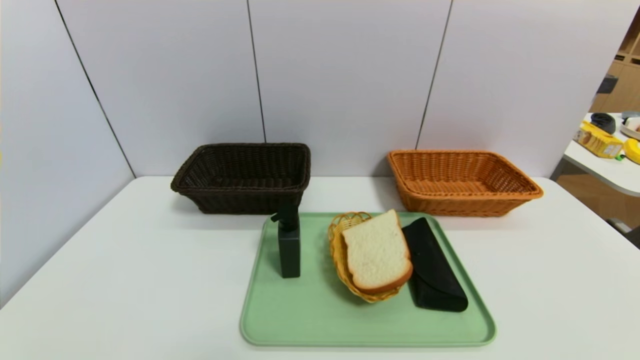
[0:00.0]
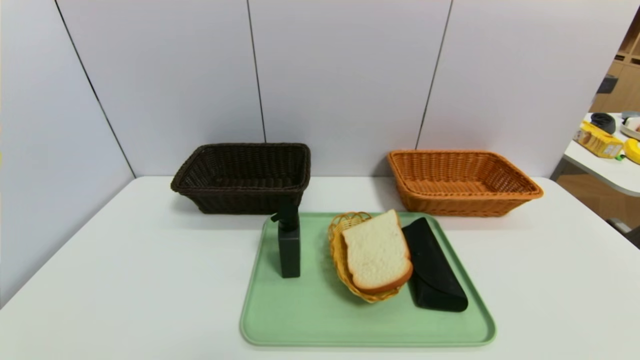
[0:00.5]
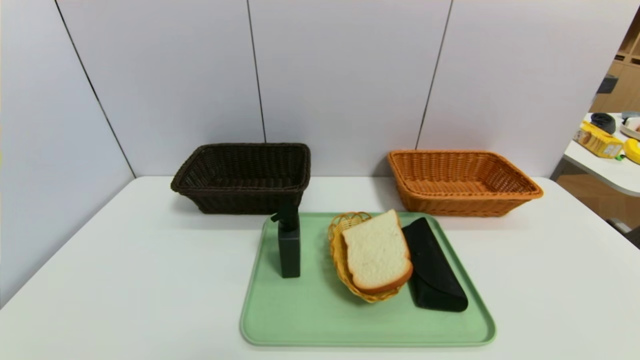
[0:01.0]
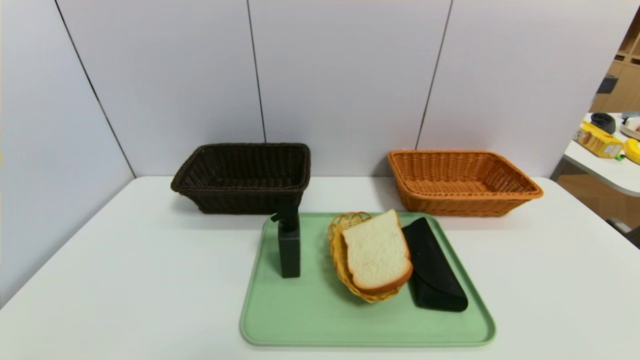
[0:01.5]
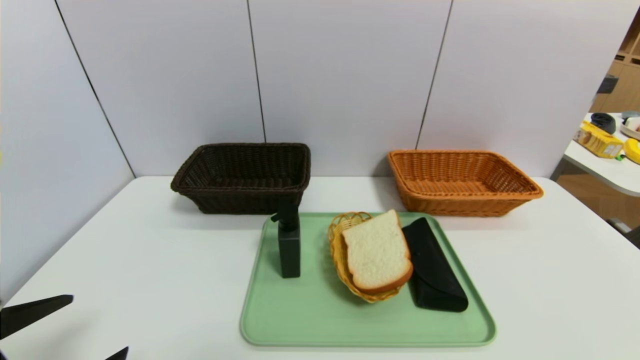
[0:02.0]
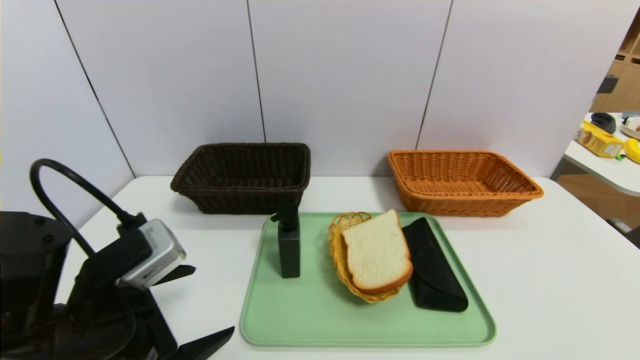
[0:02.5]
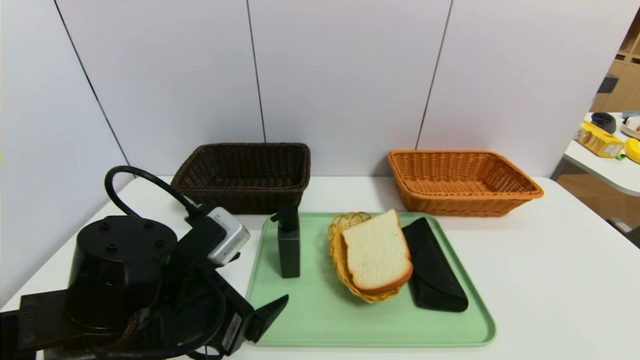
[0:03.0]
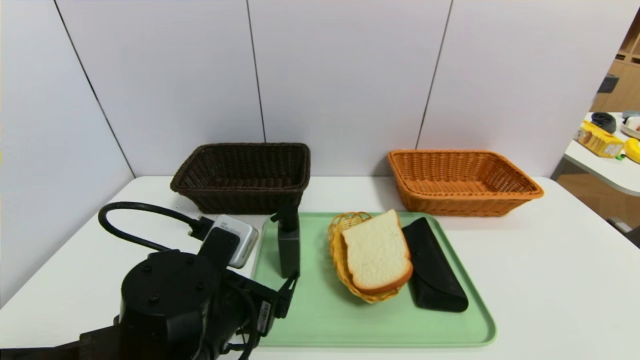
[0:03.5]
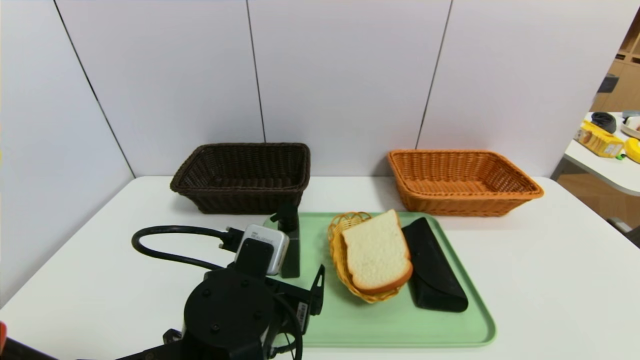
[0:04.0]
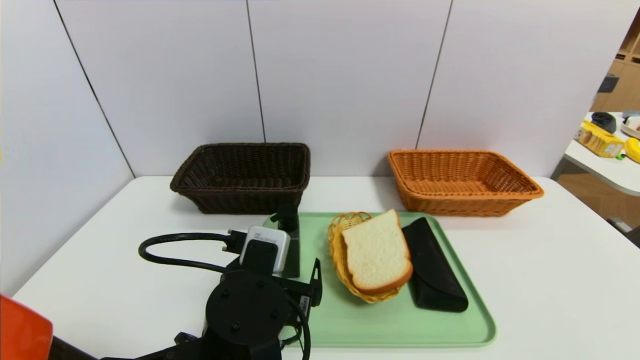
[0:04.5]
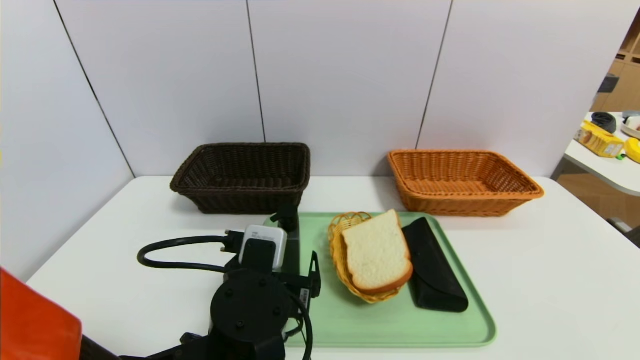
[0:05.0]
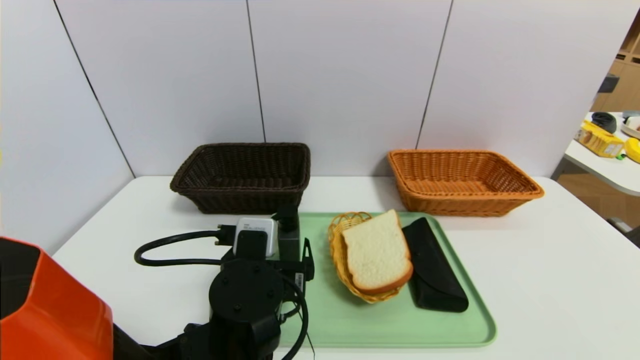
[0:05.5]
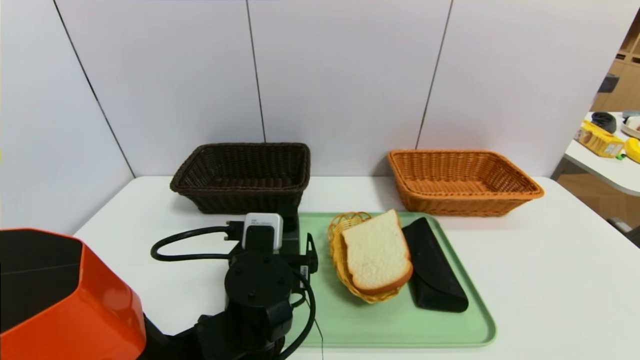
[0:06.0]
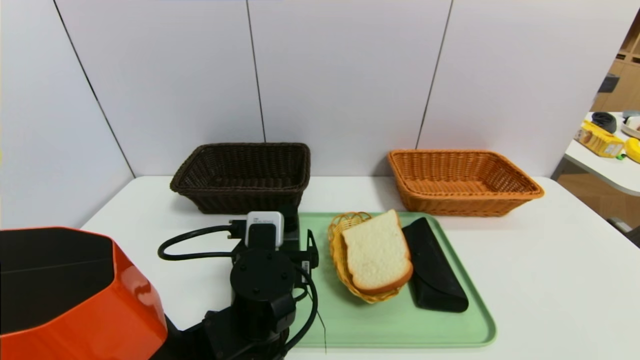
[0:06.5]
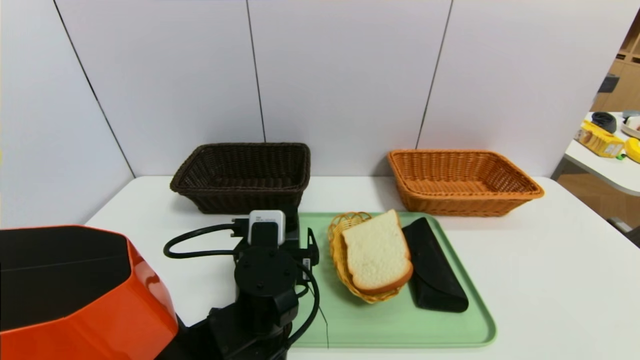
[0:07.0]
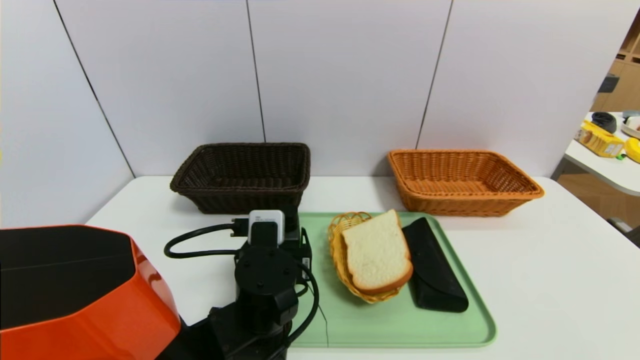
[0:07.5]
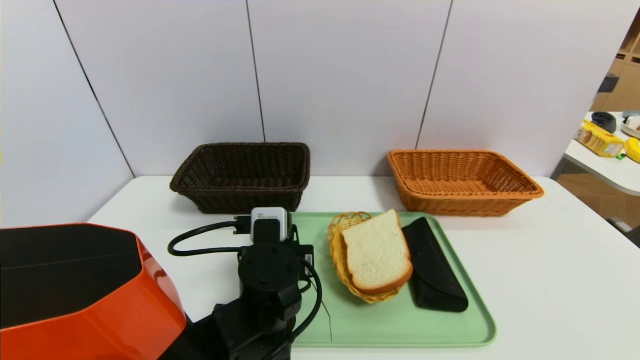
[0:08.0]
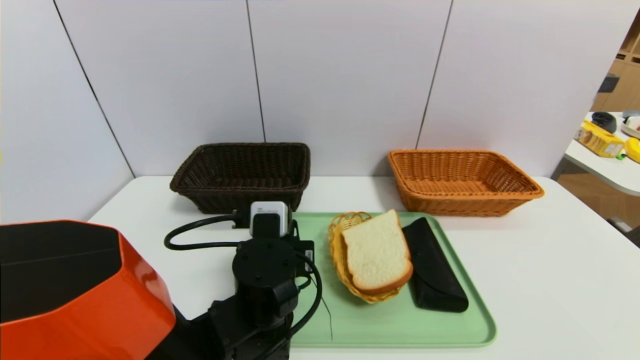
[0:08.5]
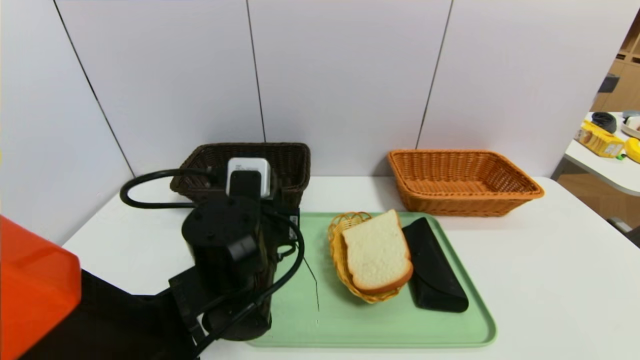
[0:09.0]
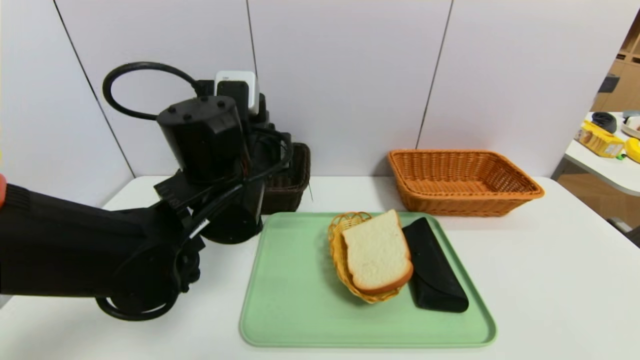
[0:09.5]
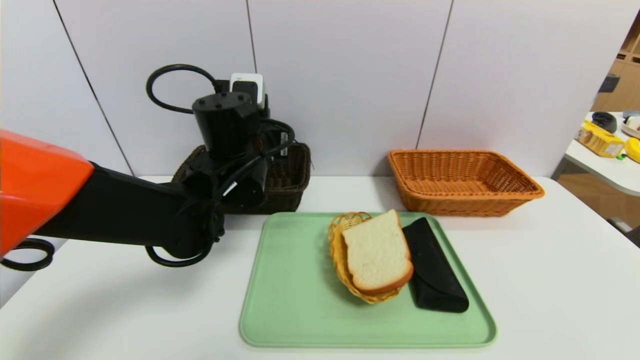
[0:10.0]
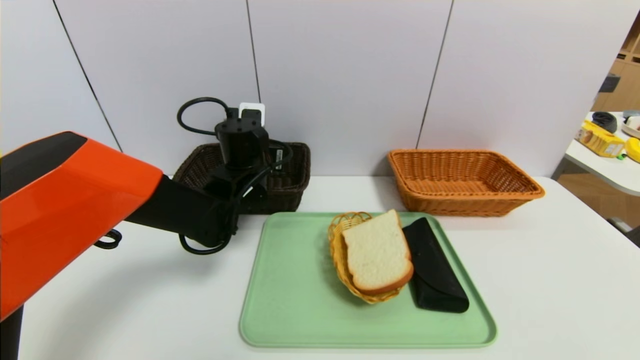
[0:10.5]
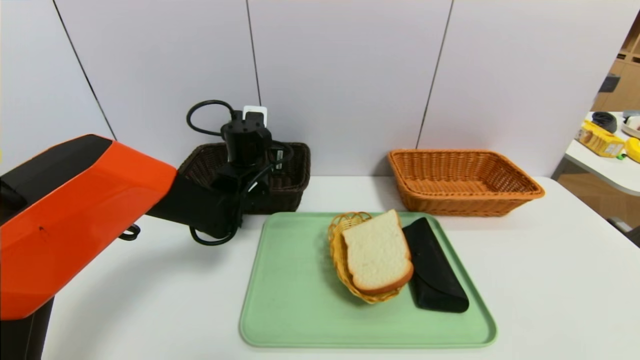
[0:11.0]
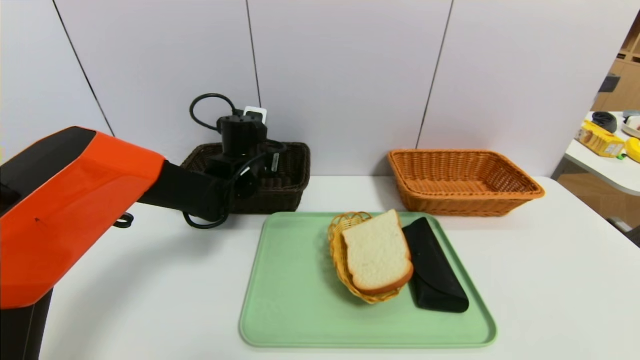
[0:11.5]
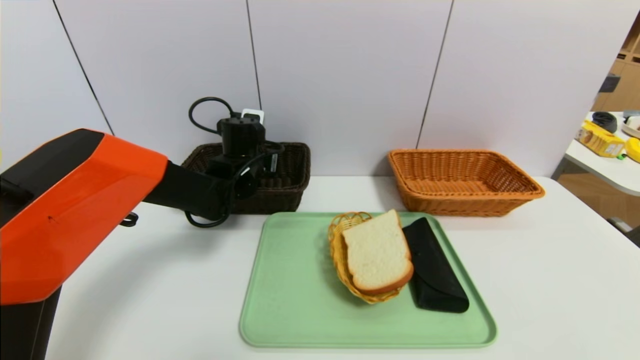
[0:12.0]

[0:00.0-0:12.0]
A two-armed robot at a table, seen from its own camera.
Task of the whole recording: place the food in the right basket with the right gripper, and place the non food items in the left basket with the left gripper.
0:00.0 to 0:02.0: The left gripper heads upward and forward, covering about 15 cm.
0:02.0 to 0:04.0: The left gripper heads to the right and forward, covering some 20 cm.
0:04.0 to 0:06.0: The grippers stay close to where they were, moving slightly.
0:06.0 to 0:08.0: The left gripper closes.
0:08.0 to 0:10.0: The left gripper shifts some 15 cm upward and forward.
0:10.0 to 0:12.0: The left gripper moves forward and downward, approximately 10 cm.

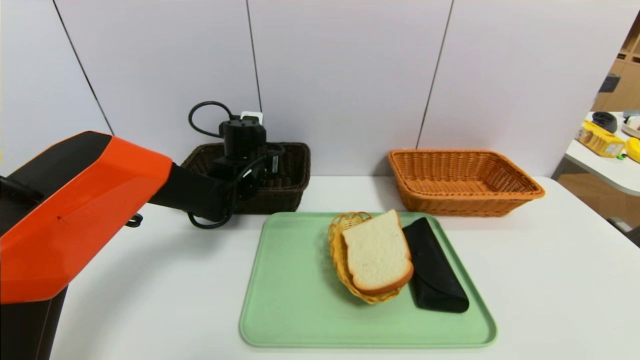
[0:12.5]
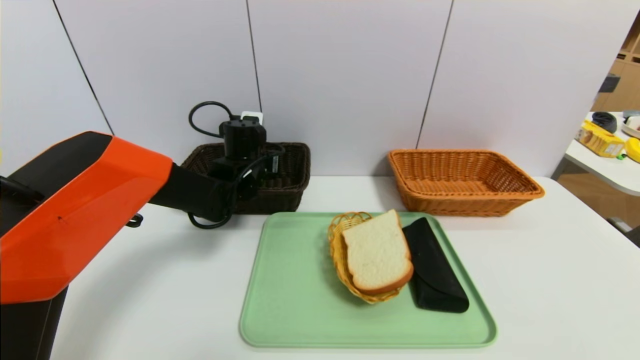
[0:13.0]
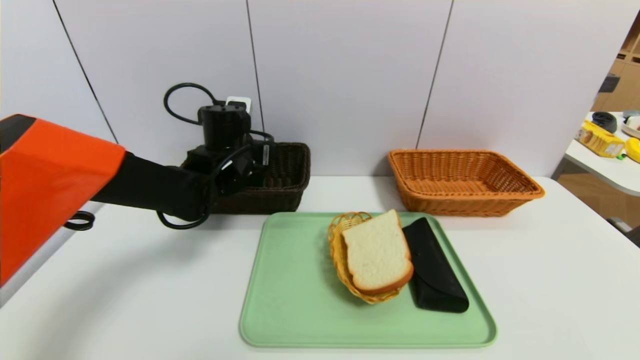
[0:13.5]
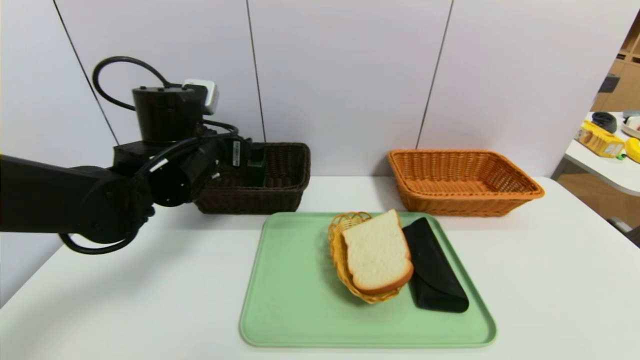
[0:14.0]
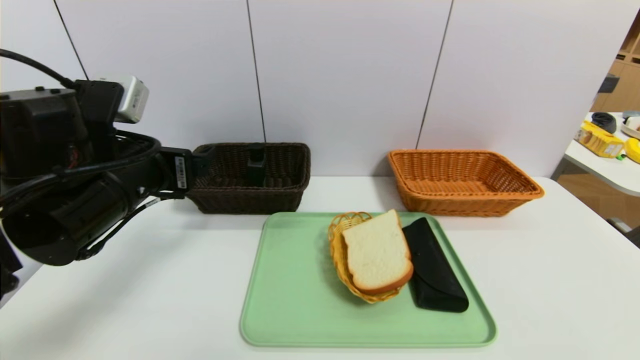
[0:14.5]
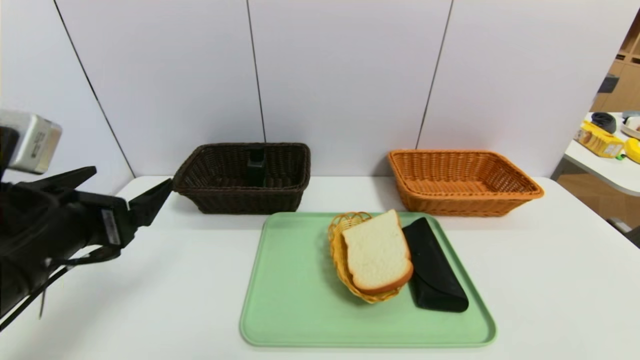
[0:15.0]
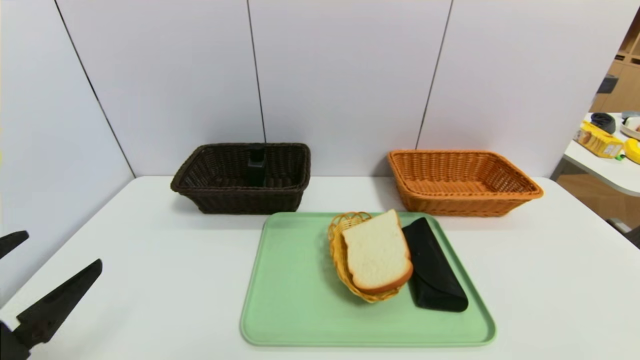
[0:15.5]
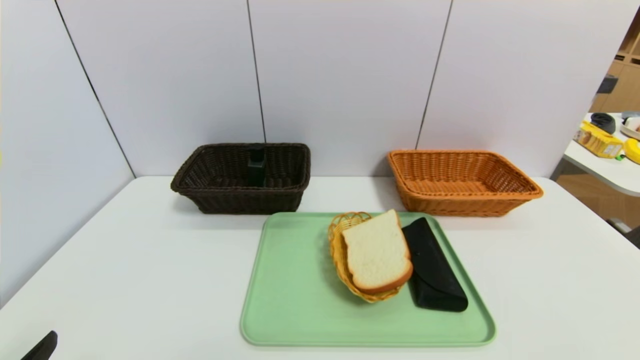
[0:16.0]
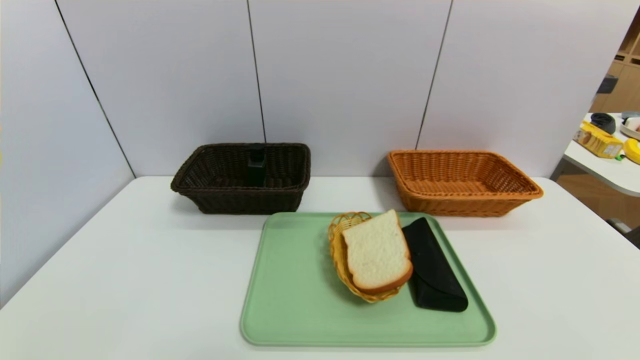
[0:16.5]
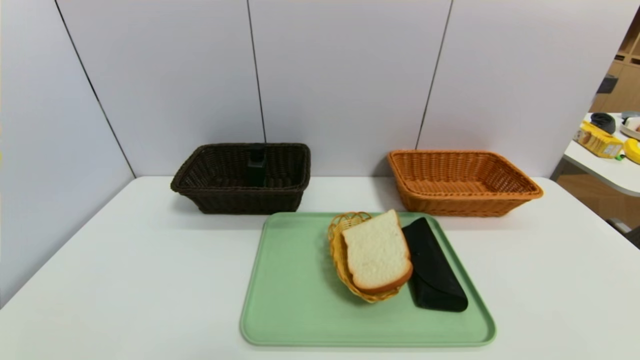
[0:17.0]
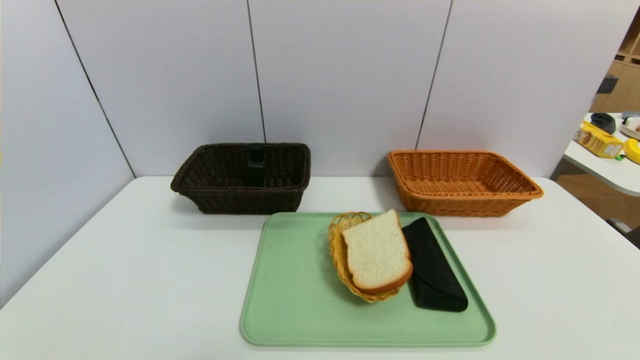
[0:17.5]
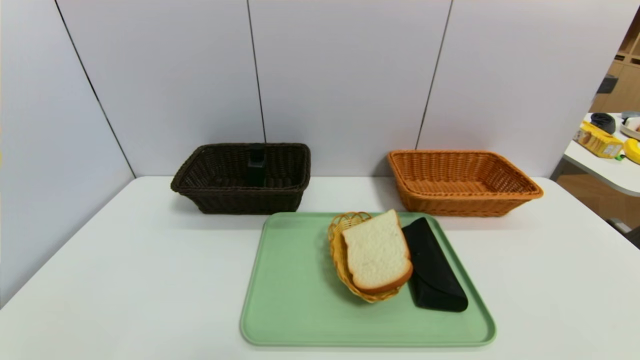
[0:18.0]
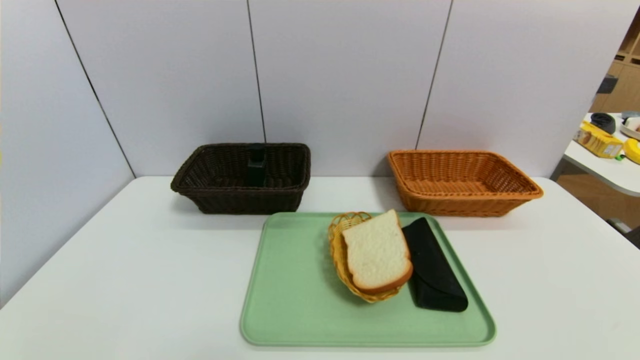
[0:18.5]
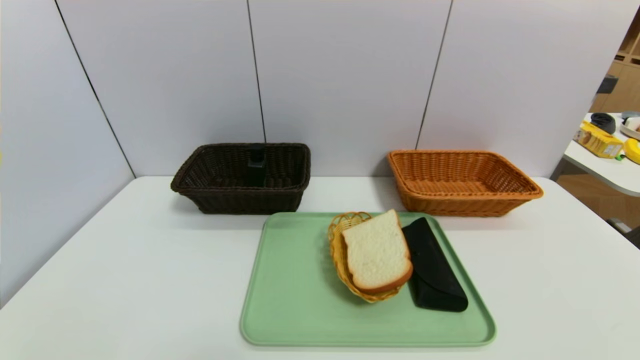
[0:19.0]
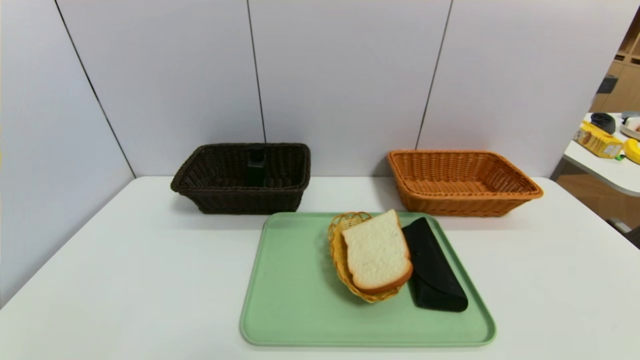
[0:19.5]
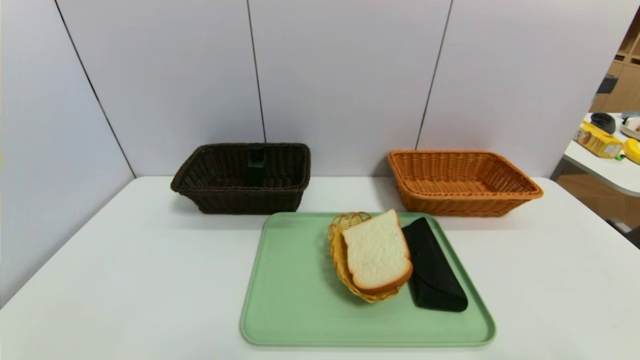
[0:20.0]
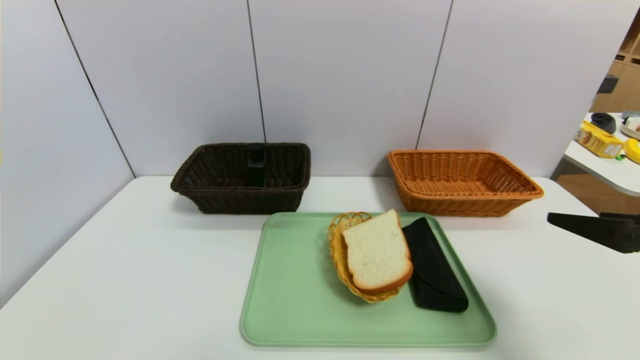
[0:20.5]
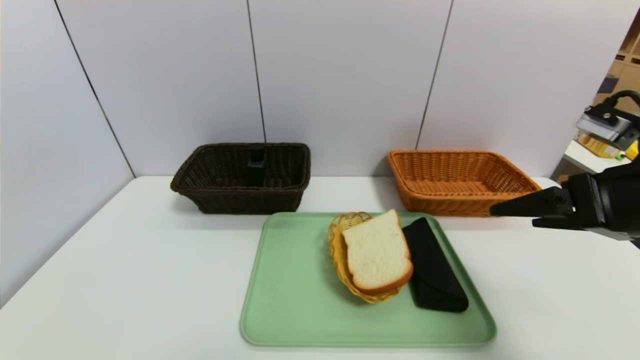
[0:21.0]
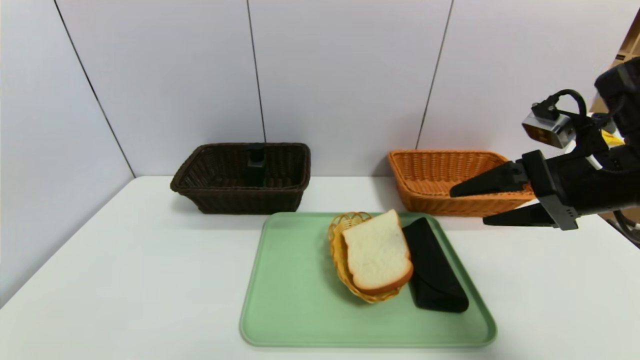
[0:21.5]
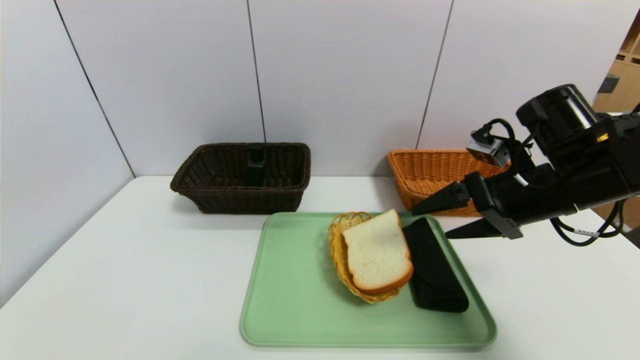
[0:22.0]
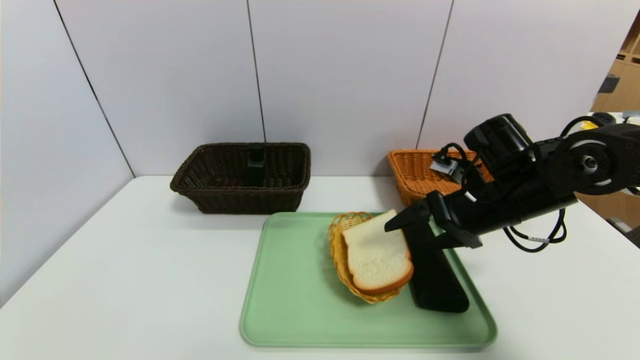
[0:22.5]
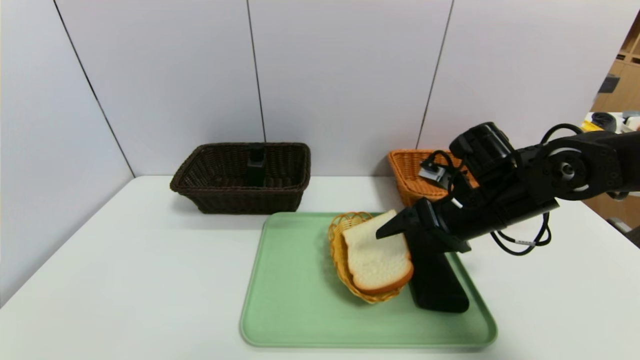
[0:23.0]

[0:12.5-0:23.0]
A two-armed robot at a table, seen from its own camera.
Task of the whole recording: place the food in the right basket with the right gripper, and place the non food items in the left basket with the left gripper.
0:12.5 to 0:14.5: The left gripper shifts approximately 20 cm backward and upward, and opens.
0:14.5 to 0:16.5: The left gripper travels backward and downward by some 30 cm.
0:19.0 to 0:21.0: The right gripper heads forward and upward, covering roughly 30 cm.
0:21.0 to 0:23.0: The right gripper moves forward, downward and to the left, roughly 15 cm.
